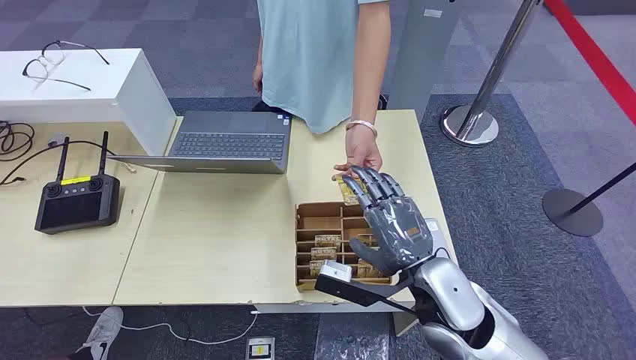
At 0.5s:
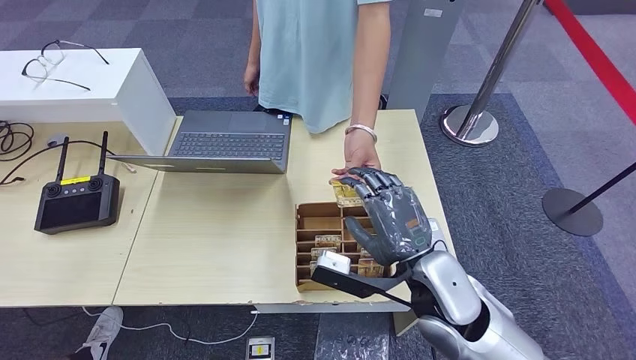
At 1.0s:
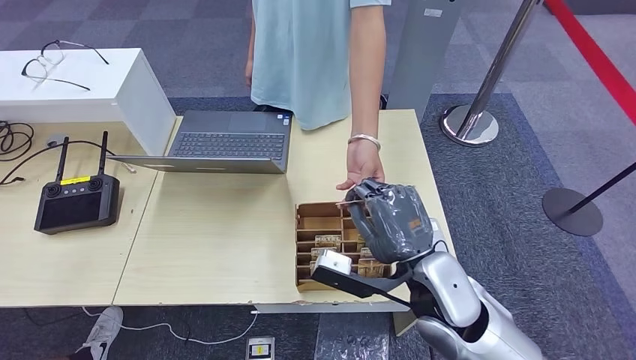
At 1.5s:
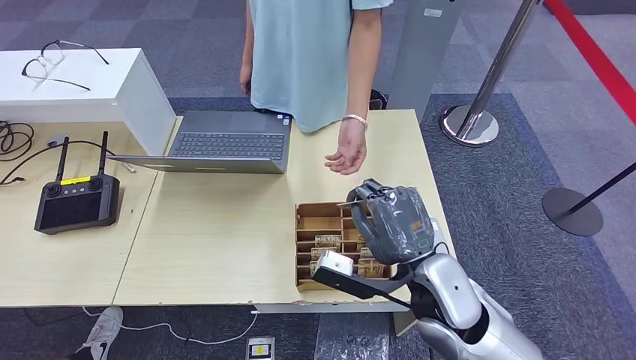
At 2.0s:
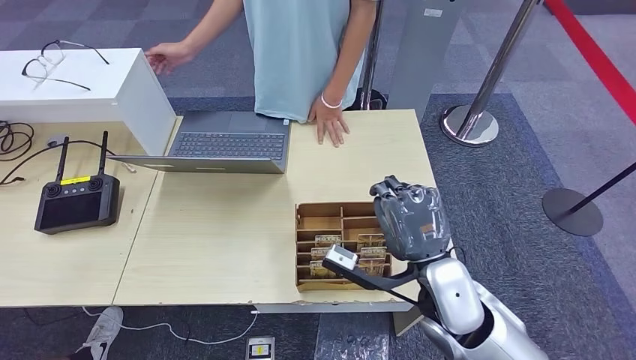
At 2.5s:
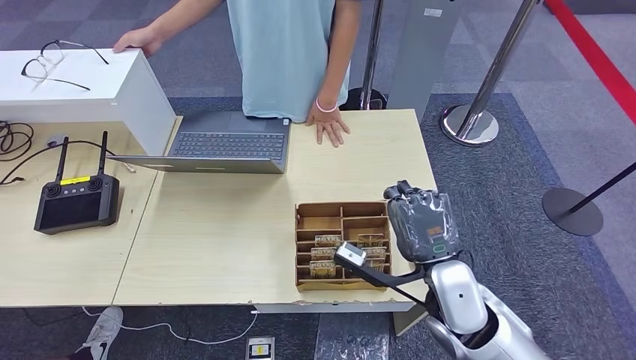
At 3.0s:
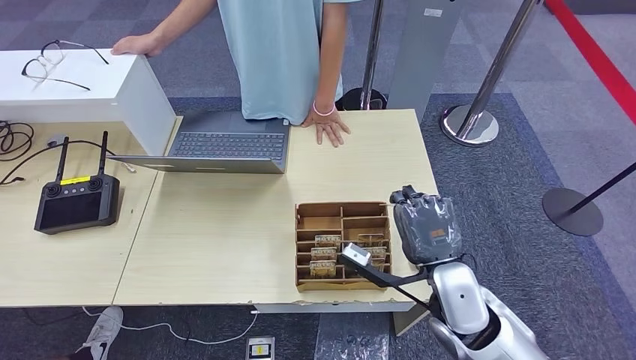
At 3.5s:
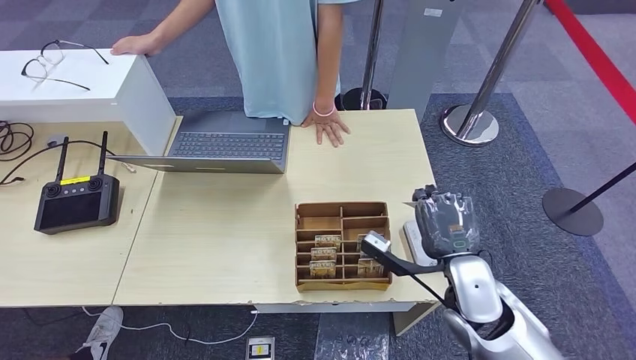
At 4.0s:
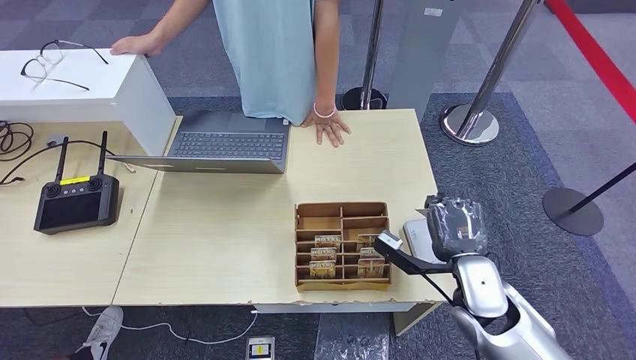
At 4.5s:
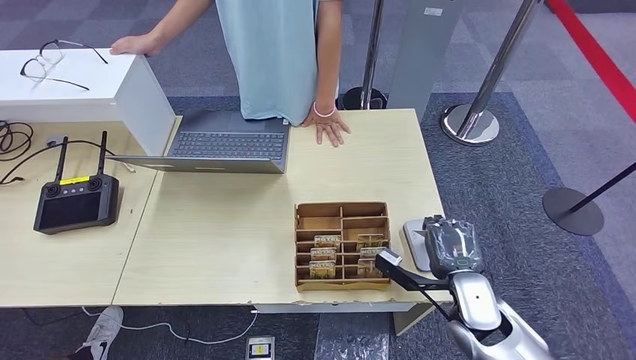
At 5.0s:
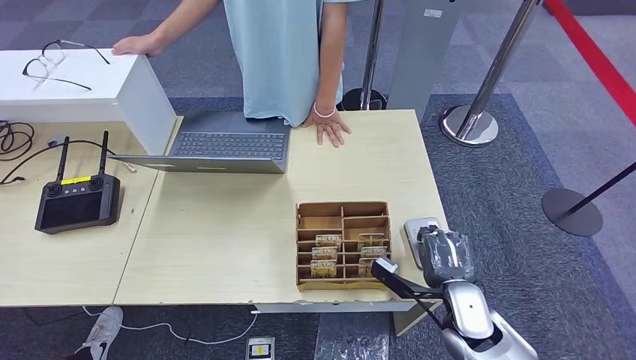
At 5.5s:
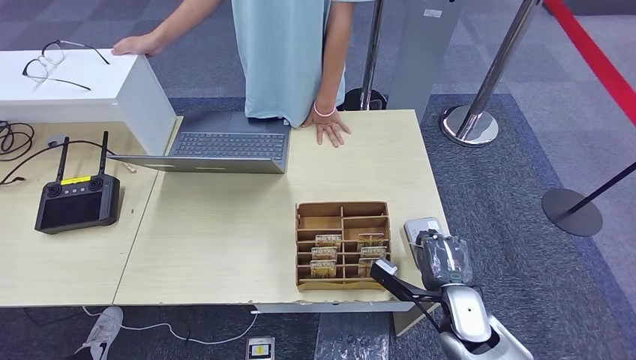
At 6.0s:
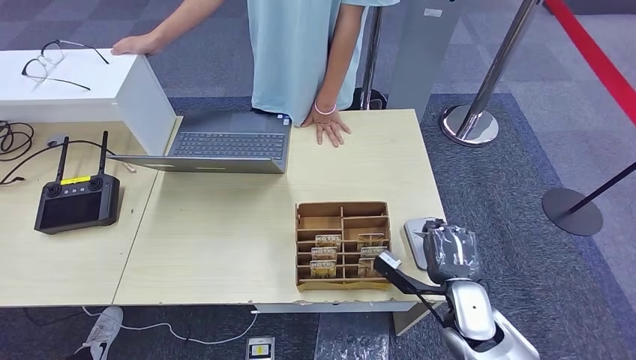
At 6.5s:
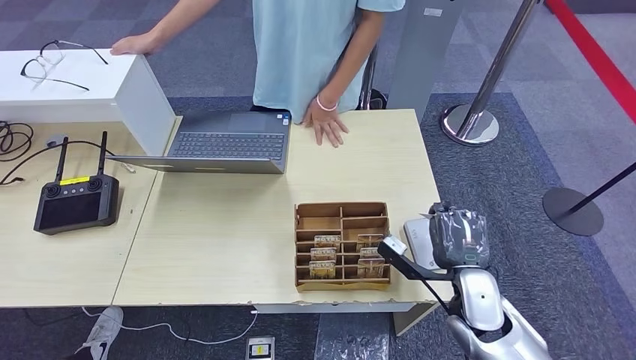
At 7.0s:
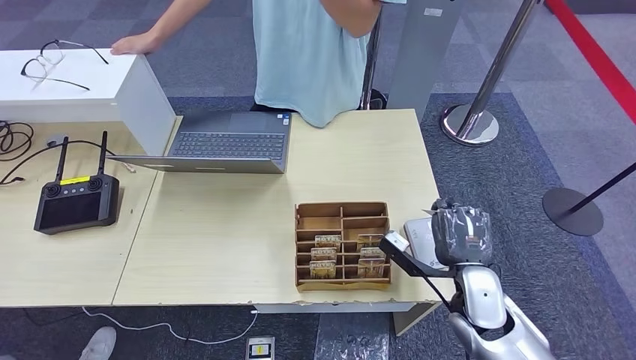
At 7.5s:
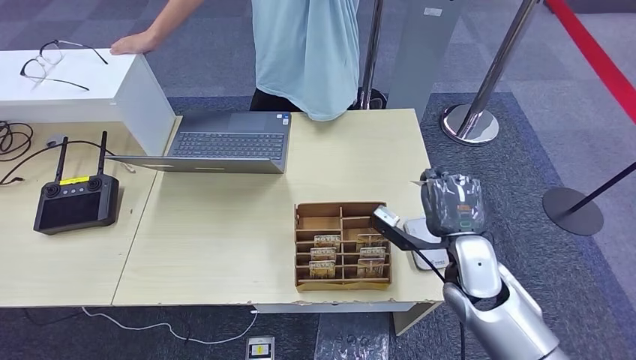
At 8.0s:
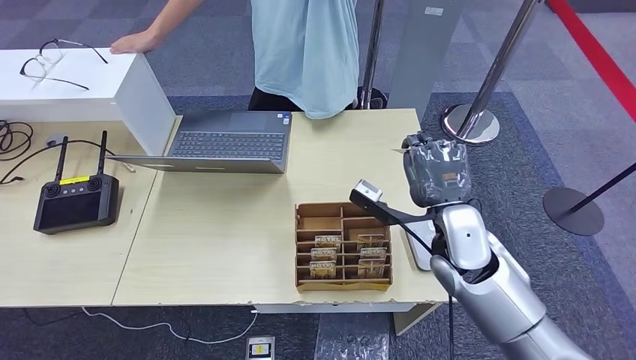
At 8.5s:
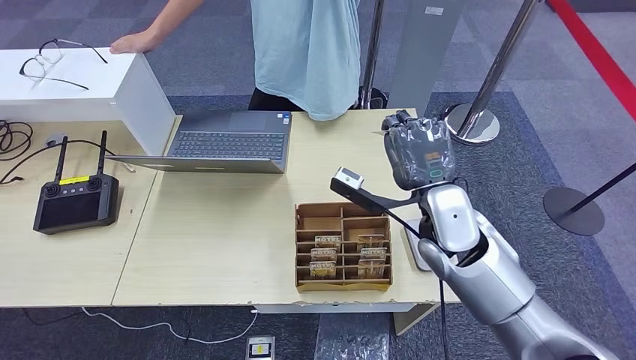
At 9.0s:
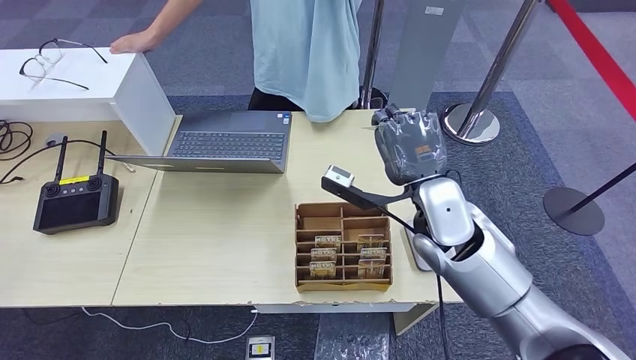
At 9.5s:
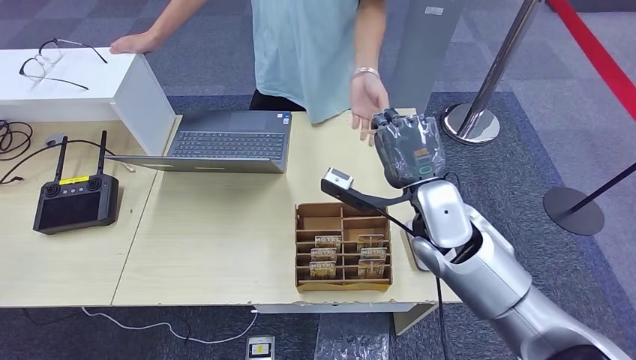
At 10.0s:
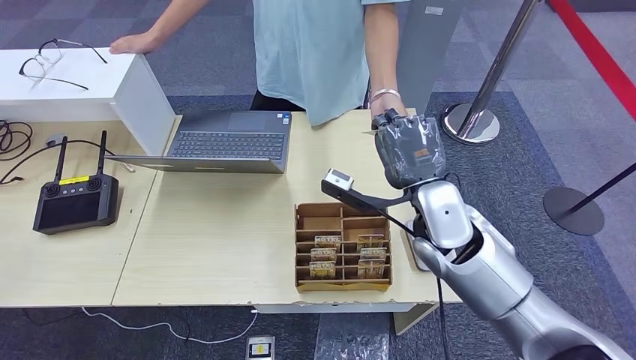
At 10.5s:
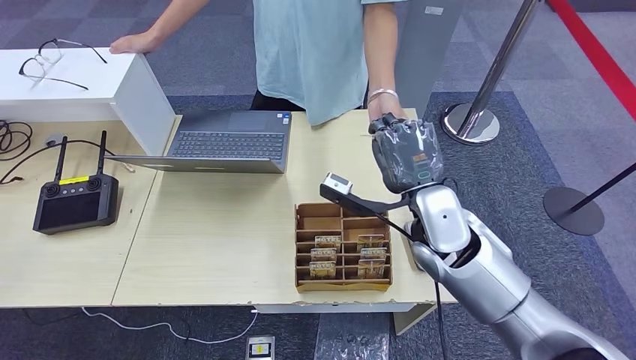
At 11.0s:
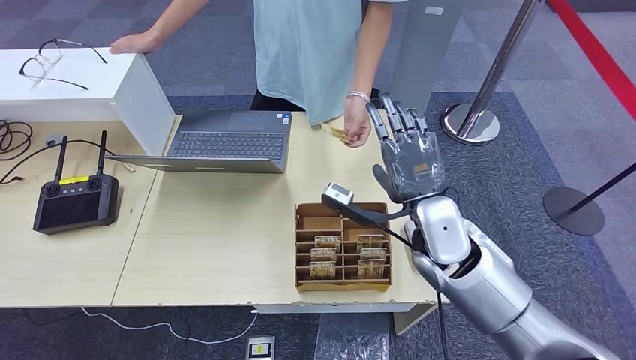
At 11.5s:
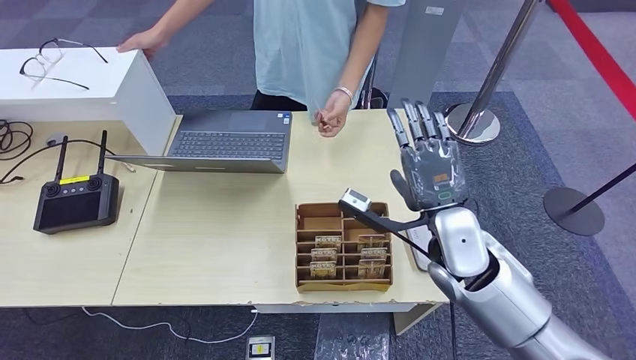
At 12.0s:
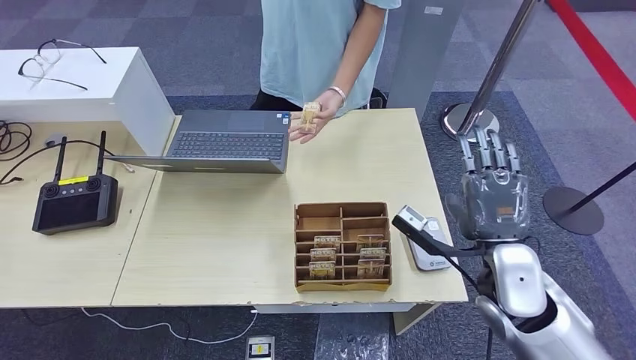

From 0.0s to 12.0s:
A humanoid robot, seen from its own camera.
Step, from 0.0s to 1.0s: Take the ID card from the person's hand.
Step, from 1.5s to 5.0s: Place the ID card on the card reader.
Step, from 5.5s to 10.5s: Hand the ID card to the person.
From 2.0s to 4.0s: The right hand shifts about 10 cm to the right and downward.
From 4.0s to 6.0s: The right hand is displaced downward by some 5 cm.
From 6.0s to 8.0s: The right hand shifts approximately 15 cm upward and forward.
From 8.0s to 10.0s: The right hand shifts by roughly 5 cm.
From 10.0s to 12.0s: The right hand heads to the right and backward, covering roughly 10 cm.

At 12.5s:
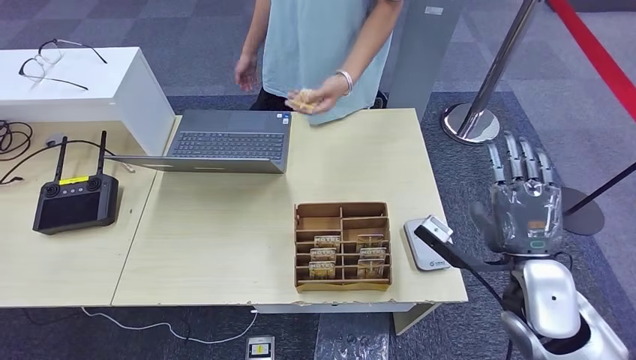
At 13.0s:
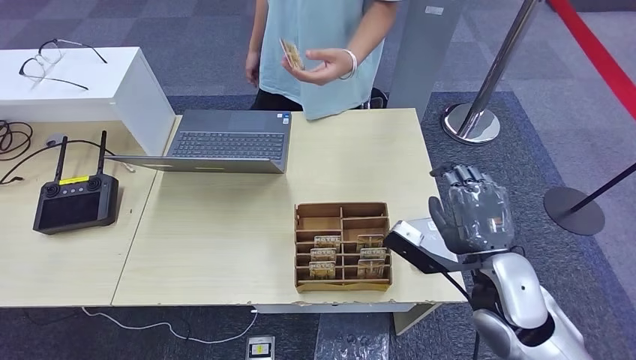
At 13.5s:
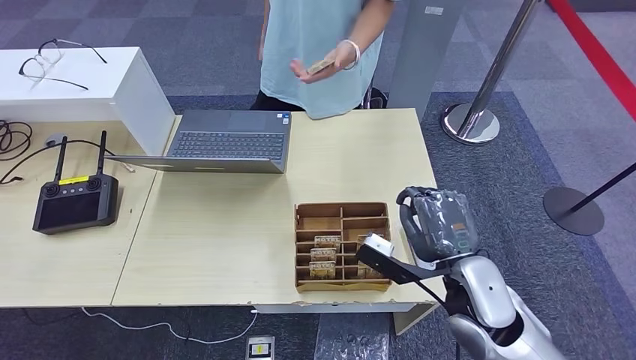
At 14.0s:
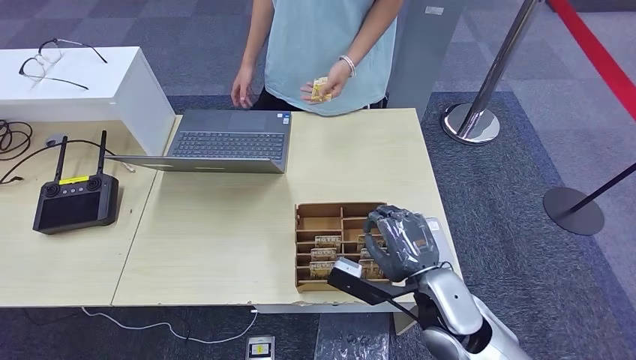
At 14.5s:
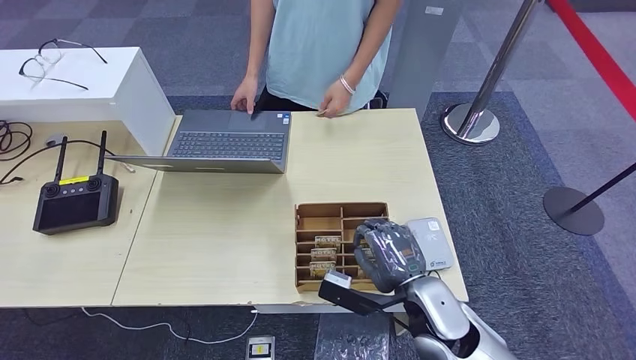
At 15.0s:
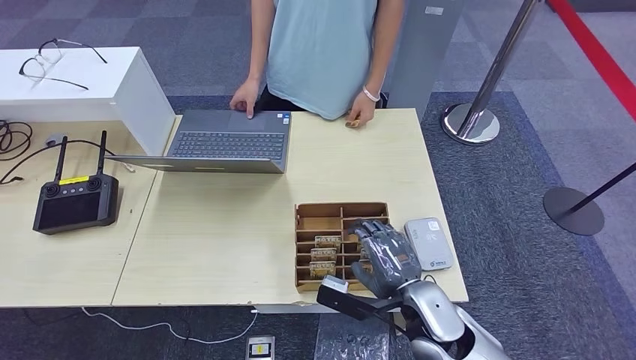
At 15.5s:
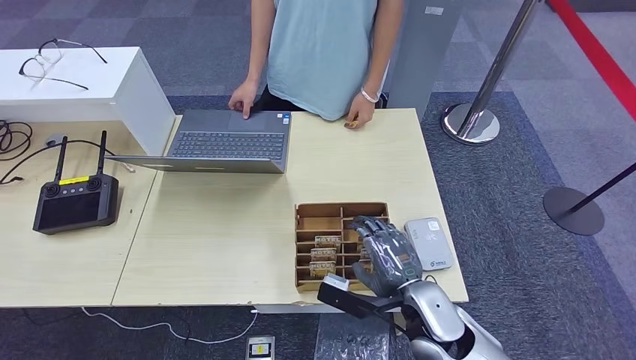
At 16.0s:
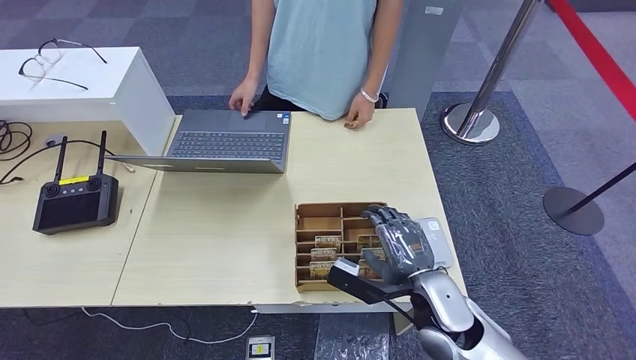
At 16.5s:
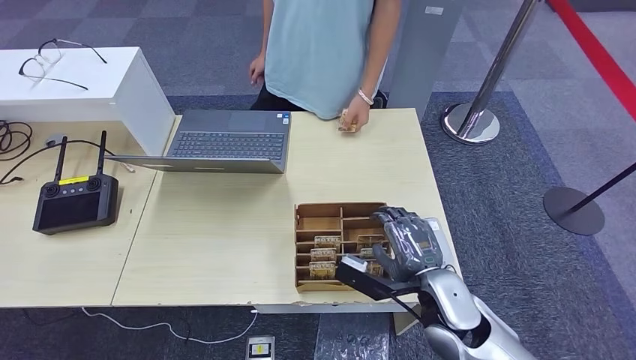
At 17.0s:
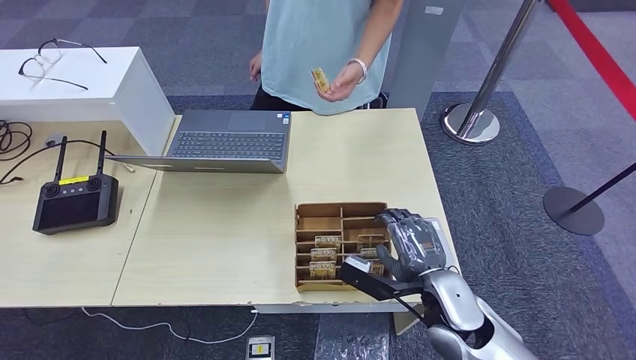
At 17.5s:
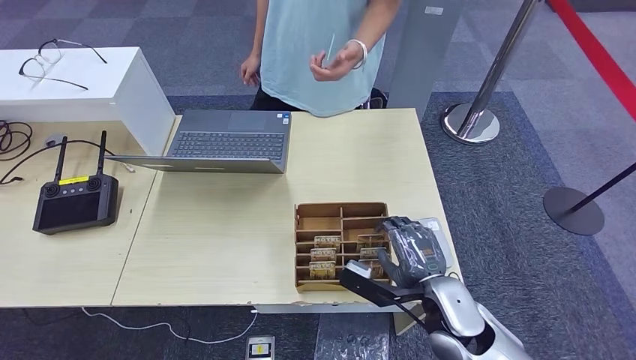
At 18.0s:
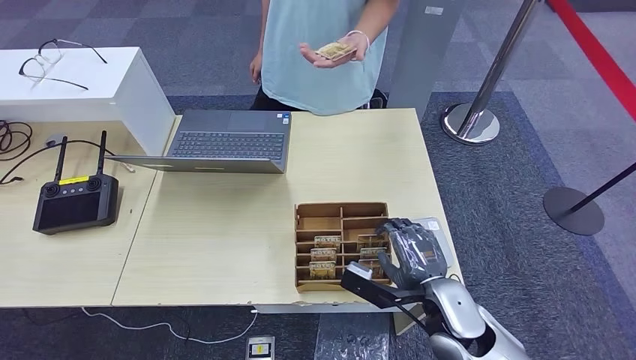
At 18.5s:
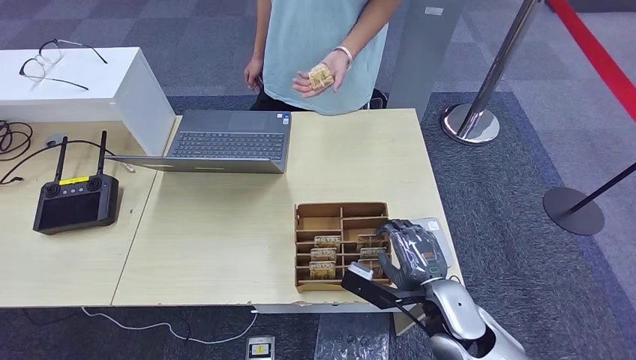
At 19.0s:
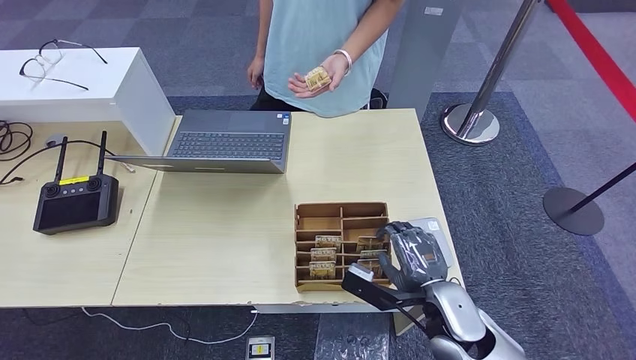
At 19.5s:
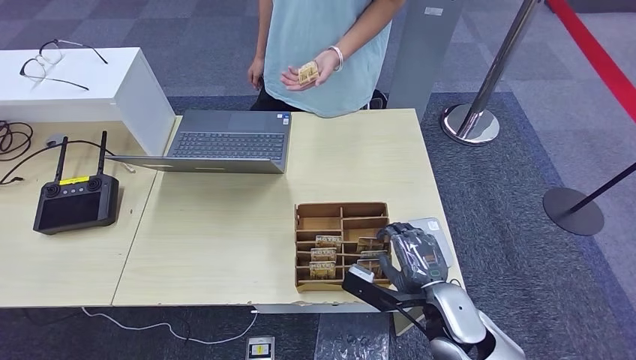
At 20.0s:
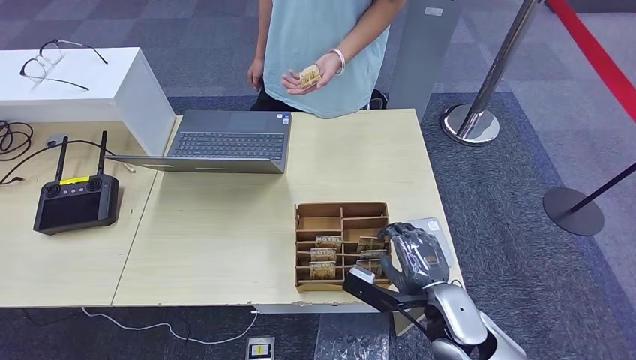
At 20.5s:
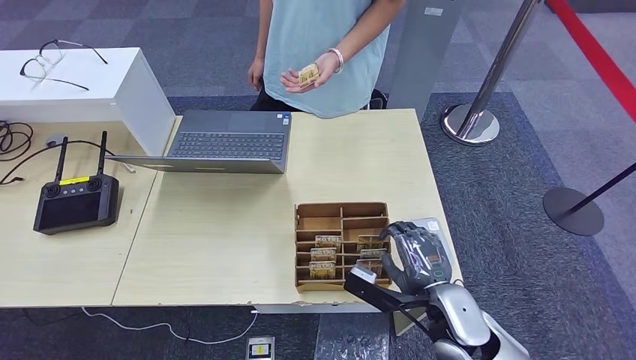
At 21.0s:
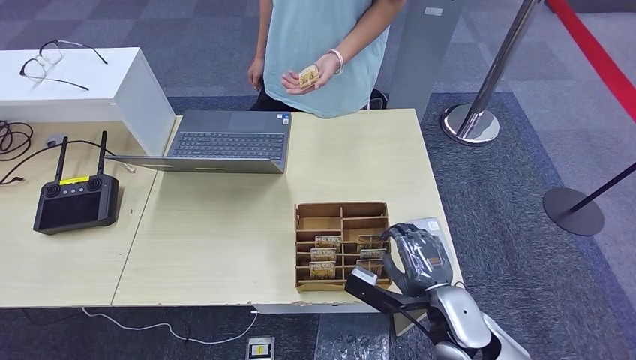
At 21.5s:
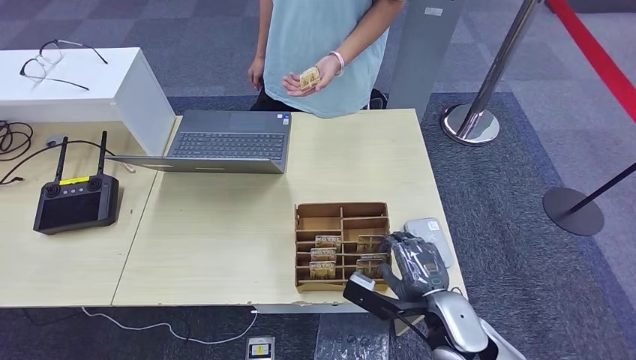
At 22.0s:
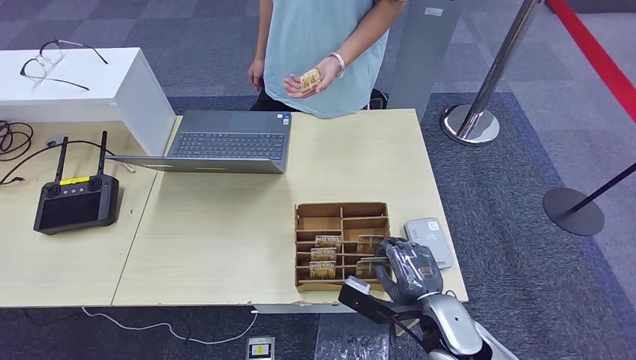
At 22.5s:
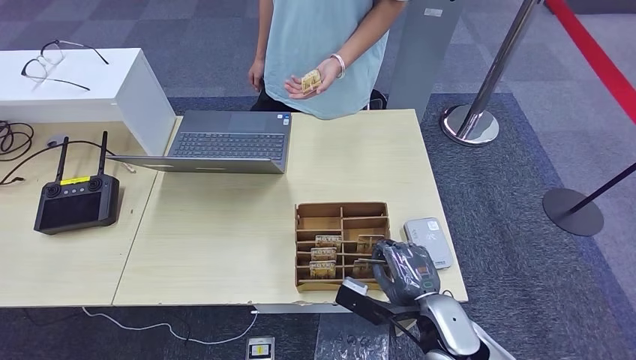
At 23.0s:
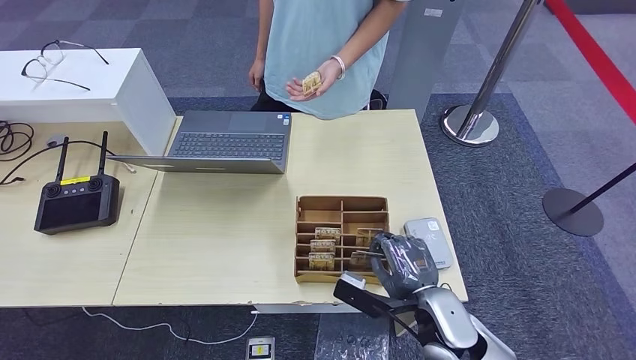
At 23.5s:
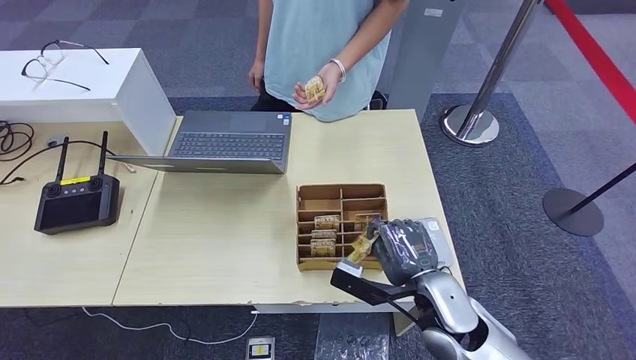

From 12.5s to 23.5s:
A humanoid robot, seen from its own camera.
From 12.5s to 14.5s: The right hand travels to the left and downward by about 15 cm.
From 14.5s to 18.0s: The hands make only small movements.
From 18.0s to 20.0s: Neither hand changes place.
From 20.0s to 21.5s: Both hands stay about where they are.
From 21.5s to 23.5s: There are only small adjustments of the hands.
